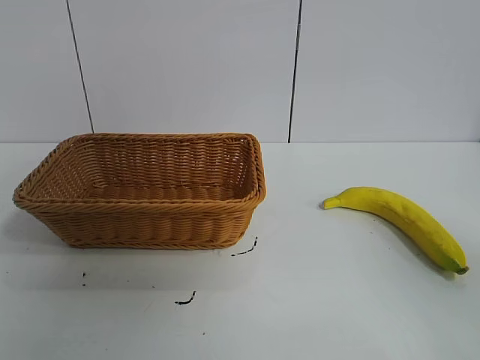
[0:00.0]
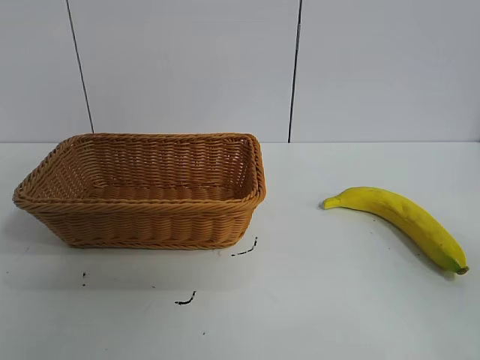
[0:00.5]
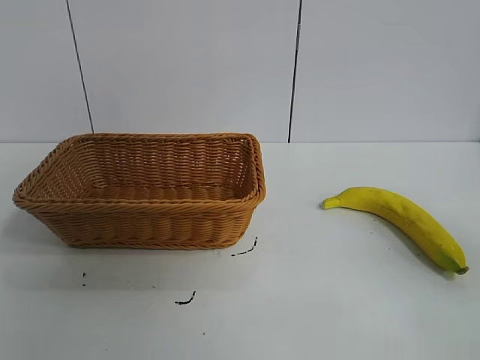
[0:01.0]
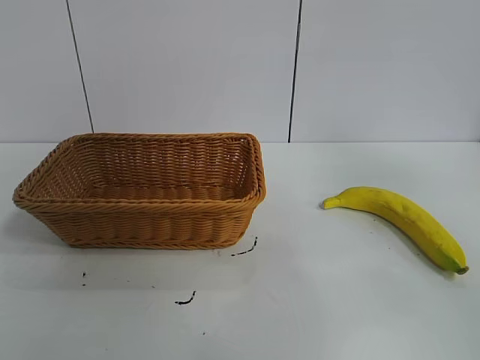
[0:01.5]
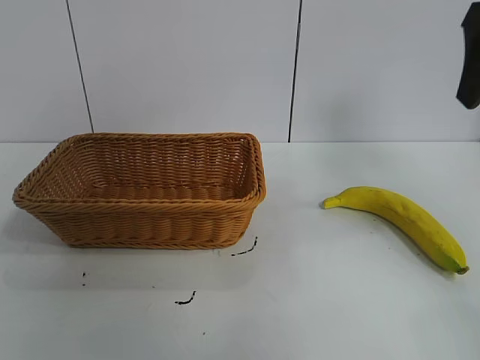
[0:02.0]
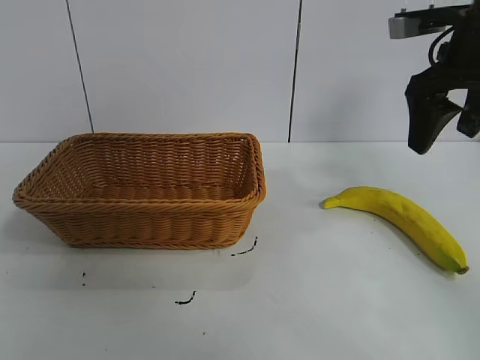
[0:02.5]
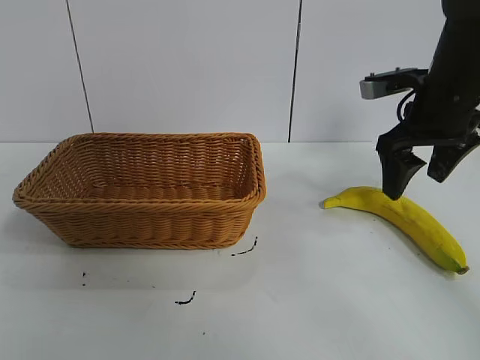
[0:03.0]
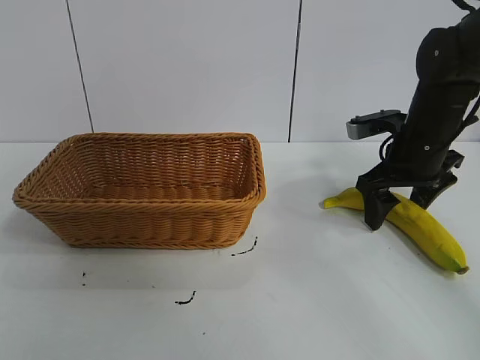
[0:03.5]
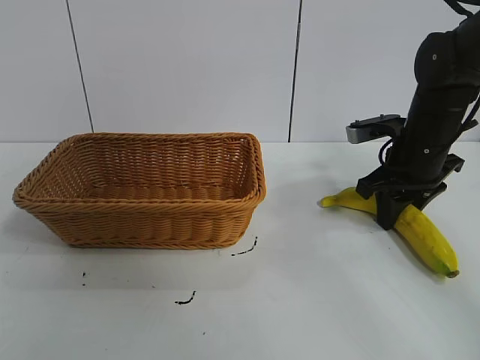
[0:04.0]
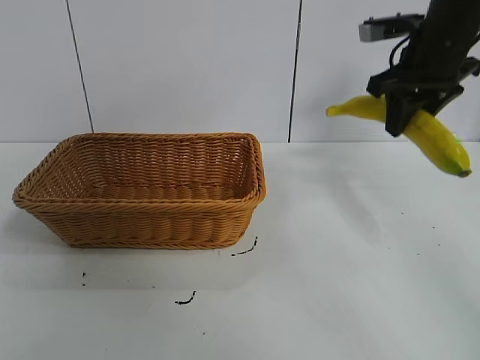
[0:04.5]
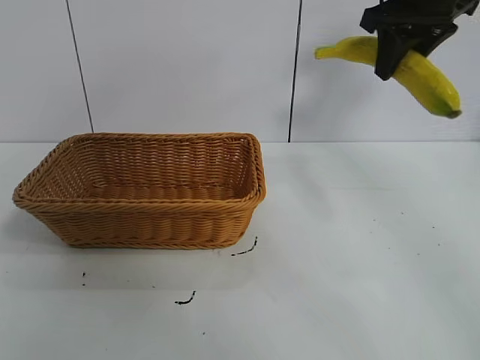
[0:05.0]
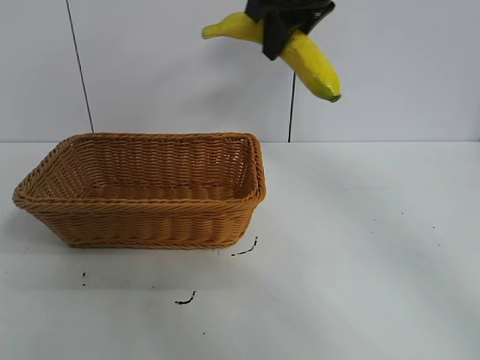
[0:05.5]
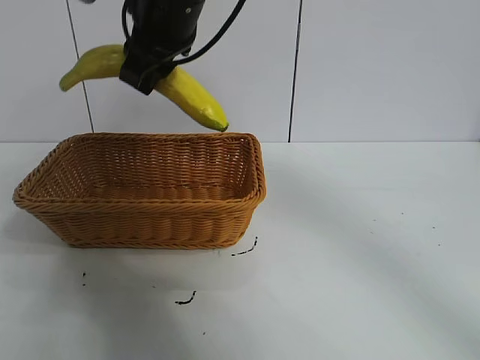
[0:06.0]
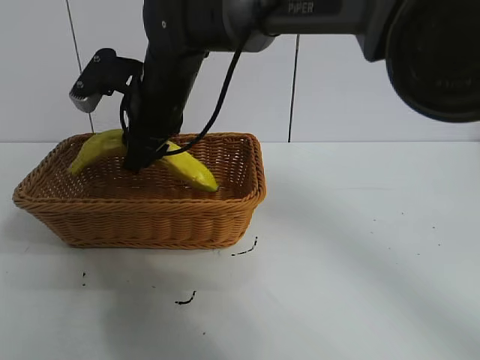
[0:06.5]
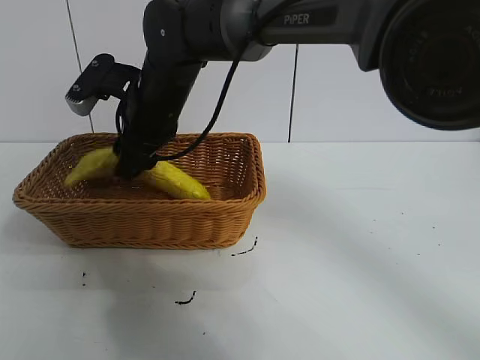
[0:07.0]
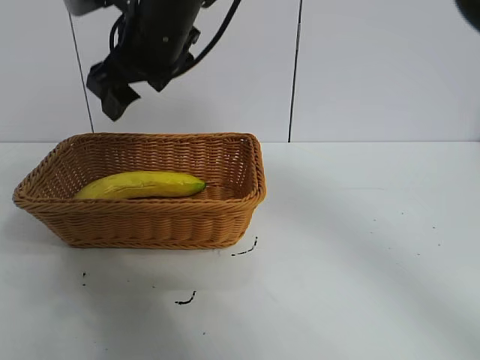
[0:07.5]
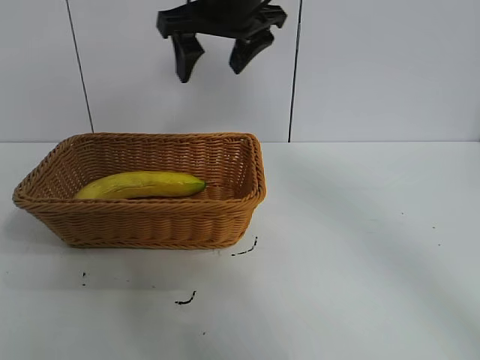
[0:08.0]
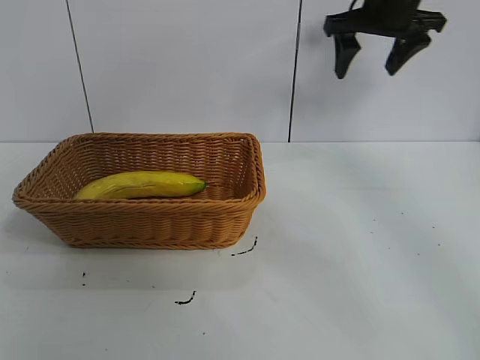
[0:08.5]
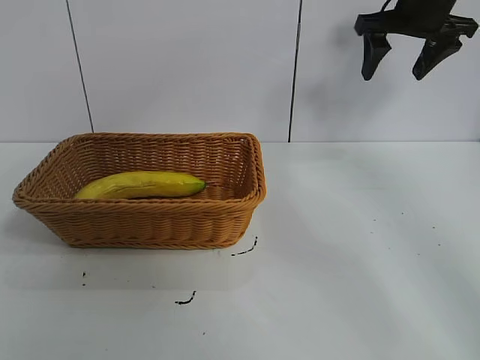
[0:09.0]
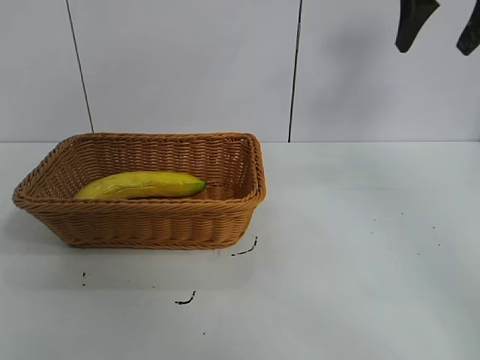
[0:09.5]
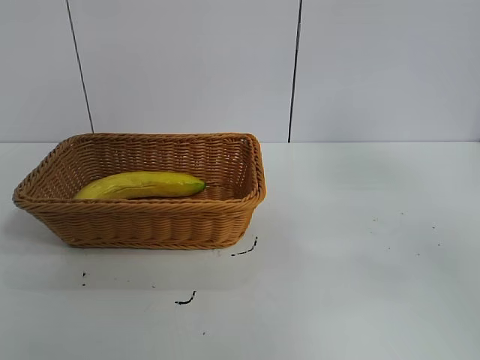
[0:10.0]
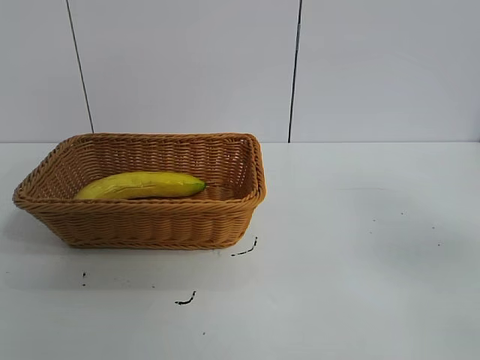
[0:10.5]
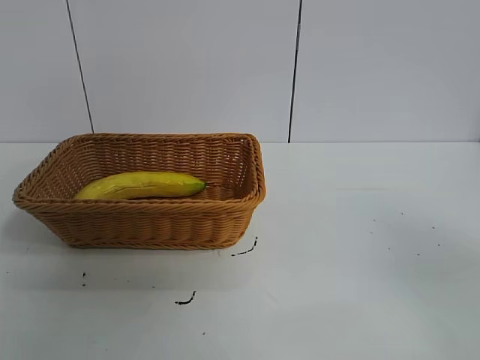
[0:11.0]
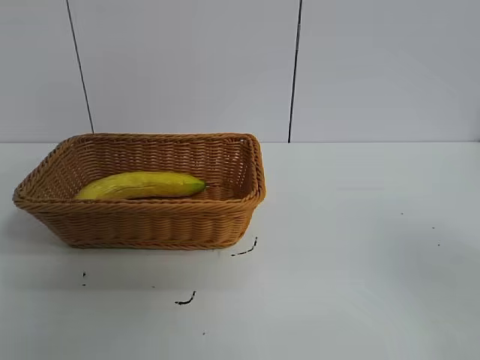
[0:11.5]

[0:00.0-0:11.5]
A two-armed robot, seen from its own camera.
Task of the whole recording: pick up the banana and put it into the basket.
Step, 0:01.0 to 0:03.5: Grasp the banana with right gripper.
Step, 0:04.5 to 0:07.0: Place the banana in the basket with right gripper.
